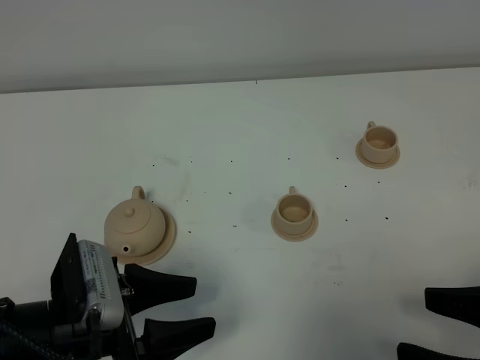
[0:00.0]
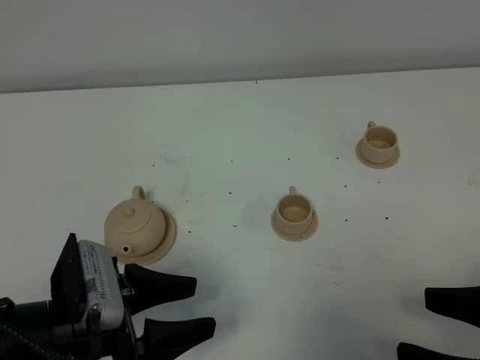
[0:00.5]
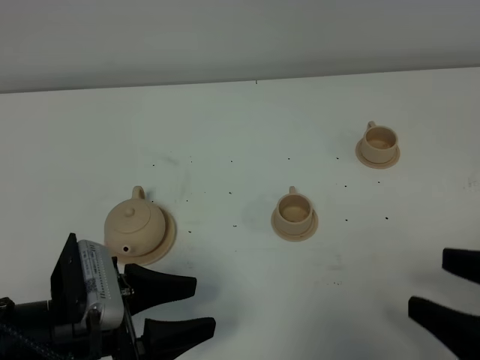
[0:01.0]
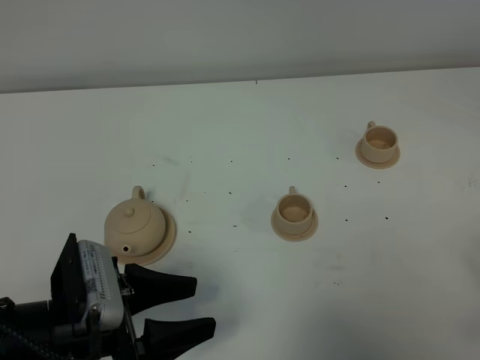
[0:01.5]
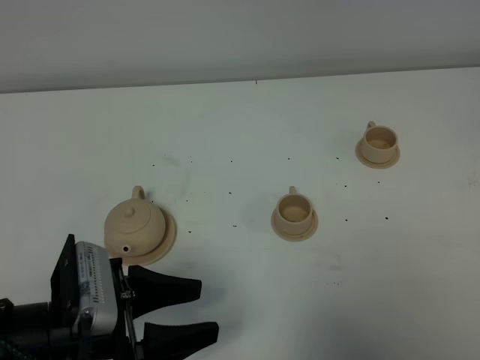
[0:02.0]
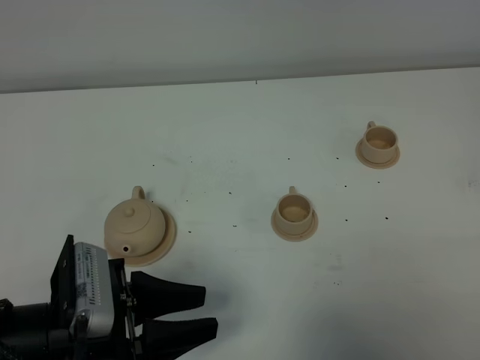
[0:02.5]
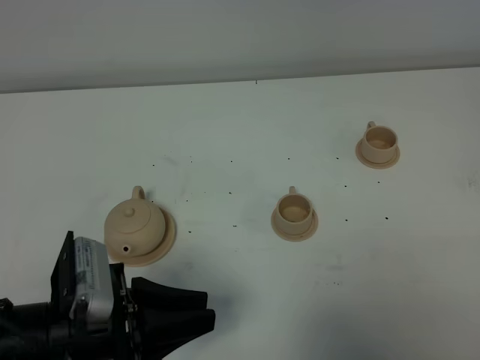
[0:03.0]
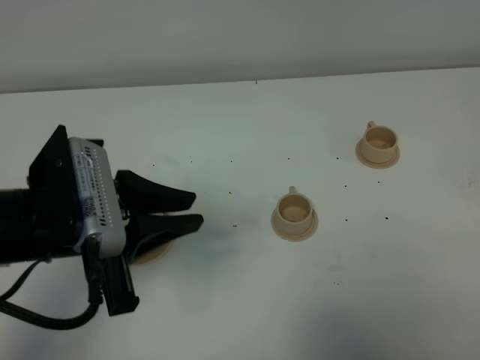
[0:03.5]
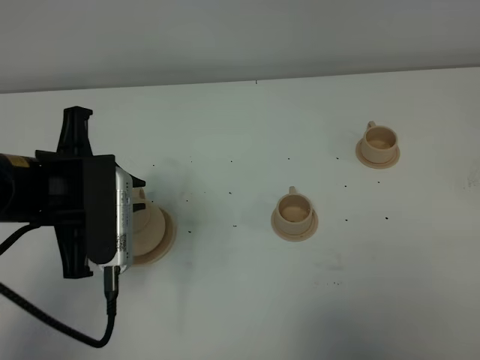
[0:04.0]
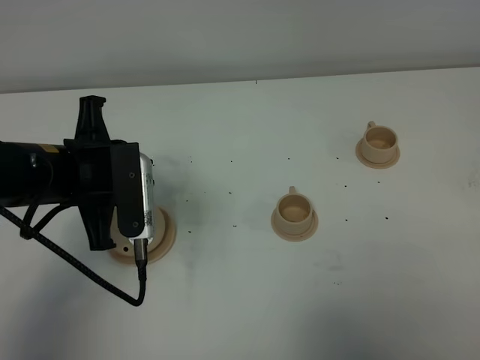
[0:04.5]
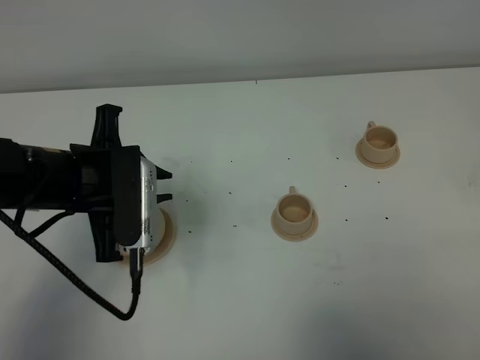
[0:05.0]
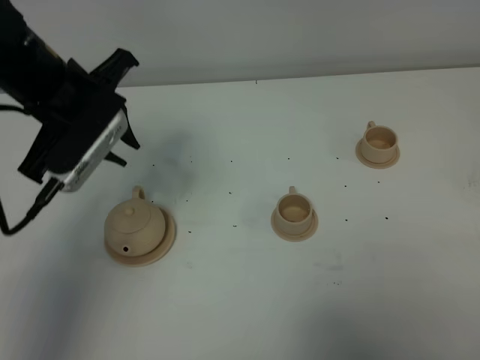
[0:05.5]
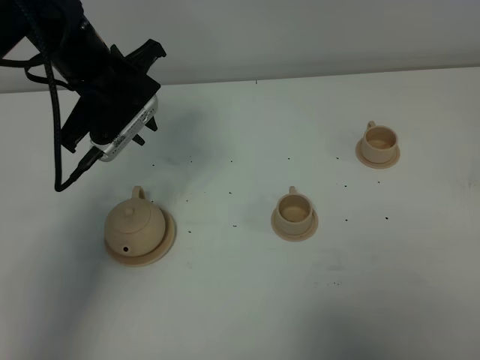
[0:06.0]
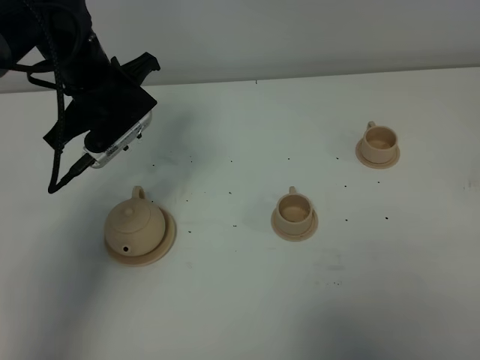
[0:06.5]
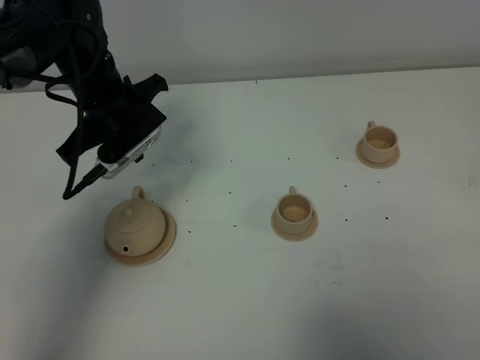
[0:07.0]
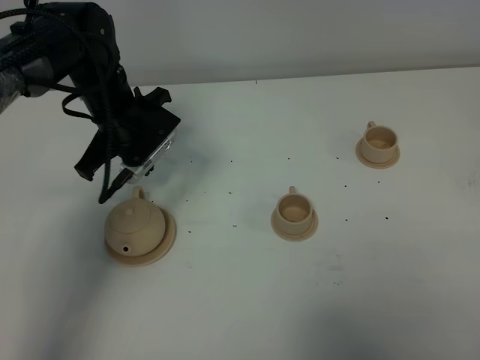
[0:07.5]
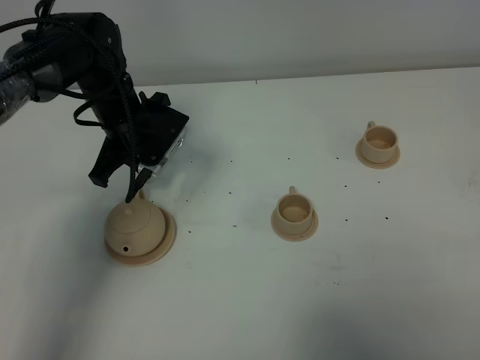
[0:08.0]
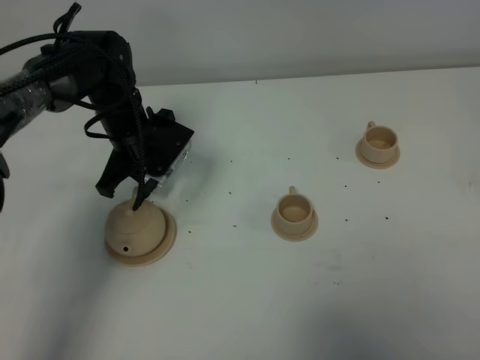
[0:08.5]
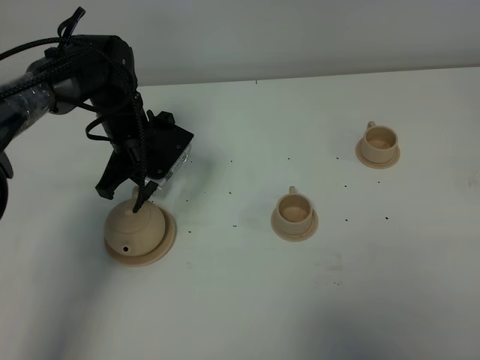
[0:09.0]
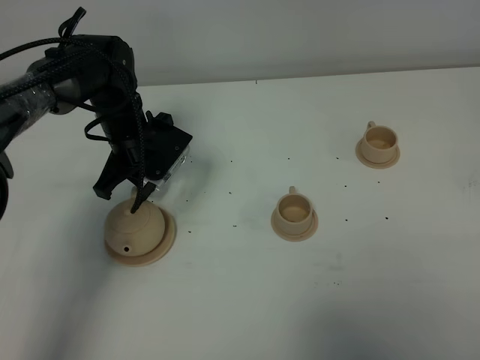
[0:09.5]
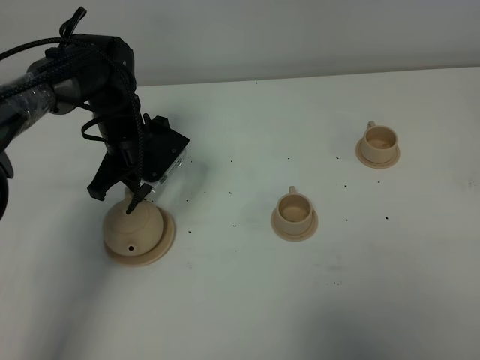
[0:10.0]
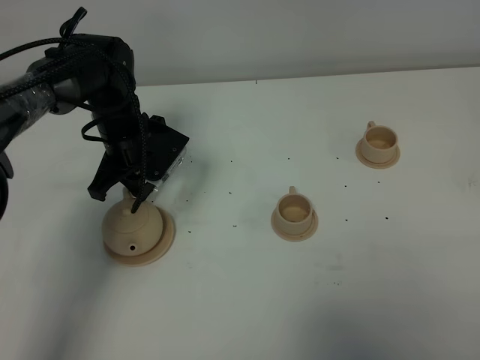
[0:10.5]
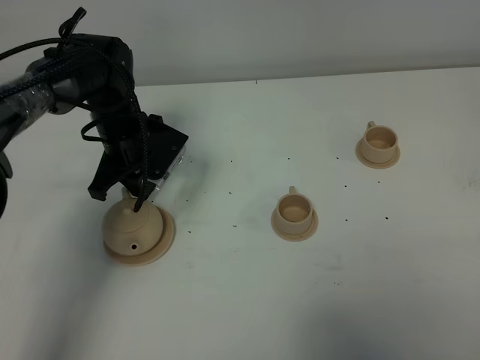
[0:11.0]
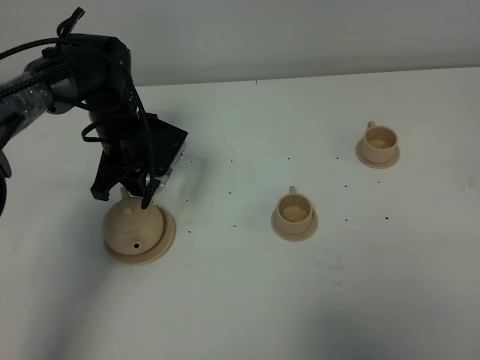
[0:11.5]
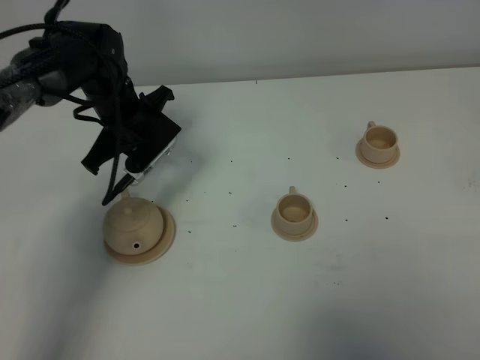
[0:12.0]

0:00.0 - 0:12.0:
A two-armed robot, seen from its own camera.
Task of the whole recording: grasp the brown teapot and pour the tea into the two brown teacups one by one, put the brown teapot back in its original place.
0:00.0 - 0:02.0: The right gripper is displaced to the right, backward and upward by about 10 cm, and closes up.
0:02.0 - 0:04.0: The left gripper goes roughly 15 cm forward and upward, and closes up.
0:04.0 - 0:06.0: The left gripper goes some 15 cm forward.
0:06.0 - 0:08.0: The left gripper travels downward by about 10 cm.
0:08.0 - 0:12.0: The grippers move only a little.

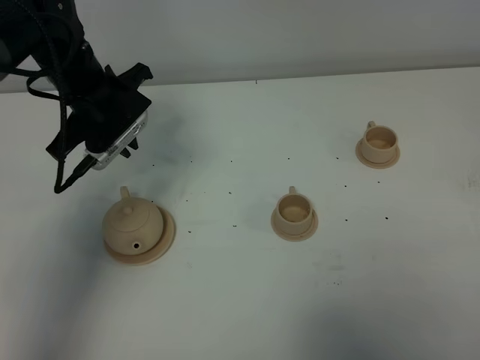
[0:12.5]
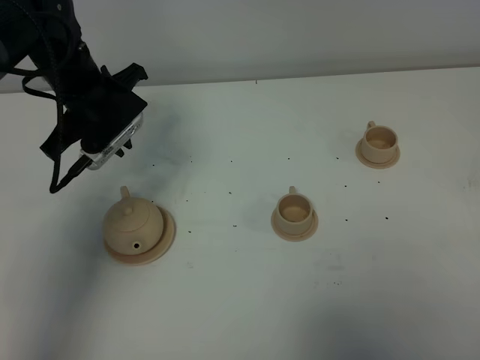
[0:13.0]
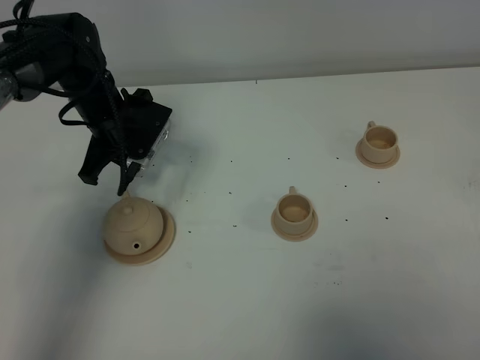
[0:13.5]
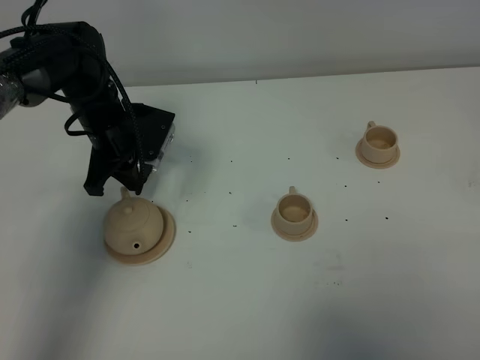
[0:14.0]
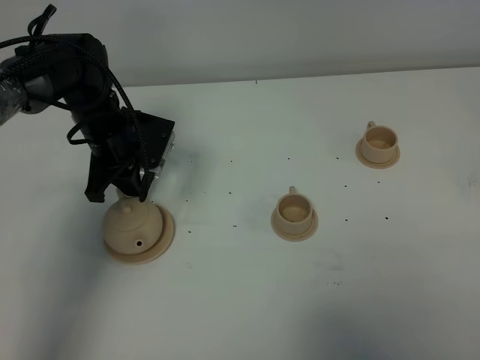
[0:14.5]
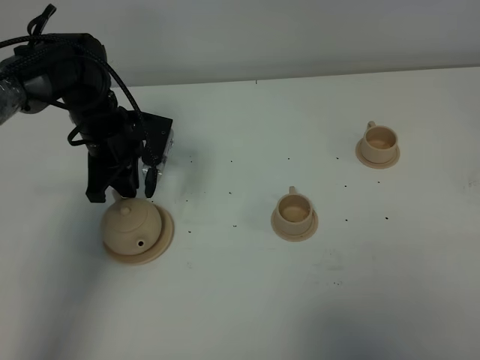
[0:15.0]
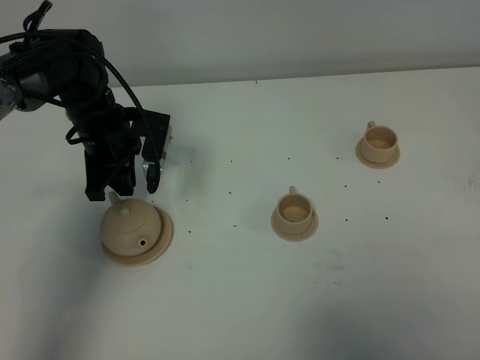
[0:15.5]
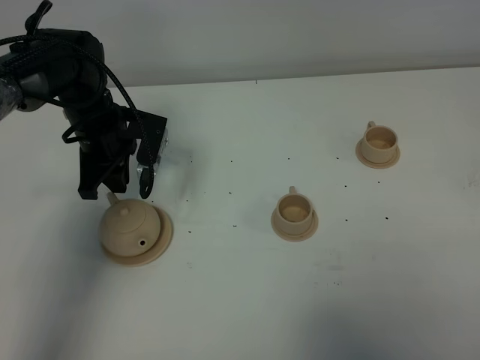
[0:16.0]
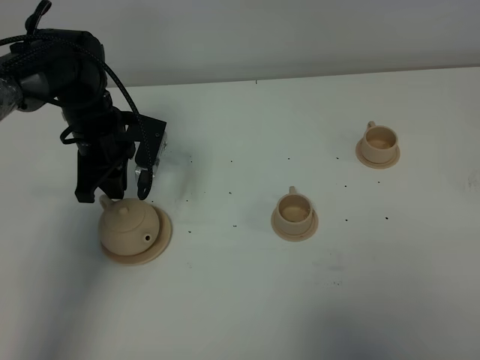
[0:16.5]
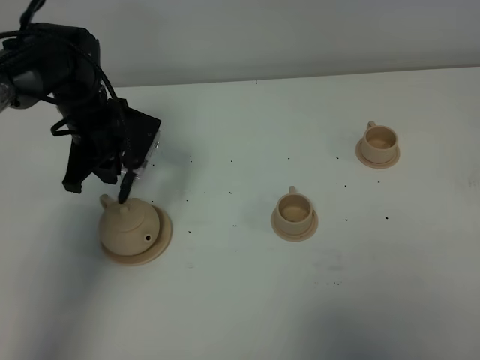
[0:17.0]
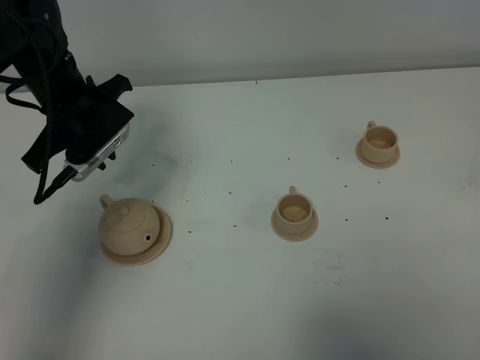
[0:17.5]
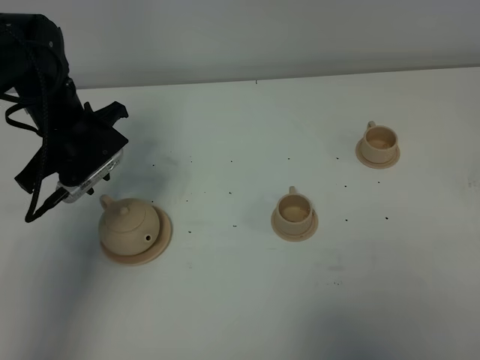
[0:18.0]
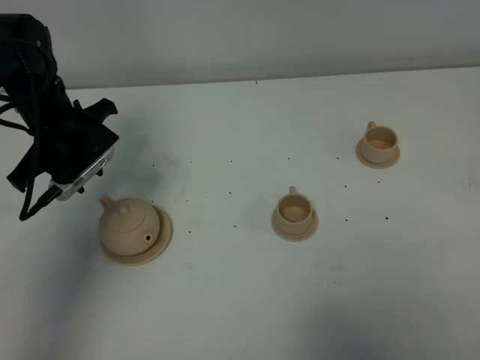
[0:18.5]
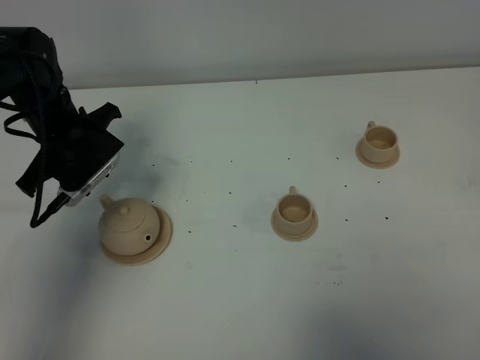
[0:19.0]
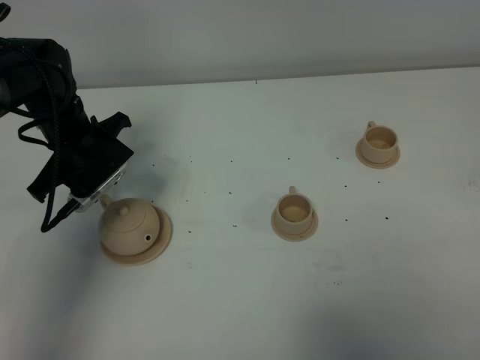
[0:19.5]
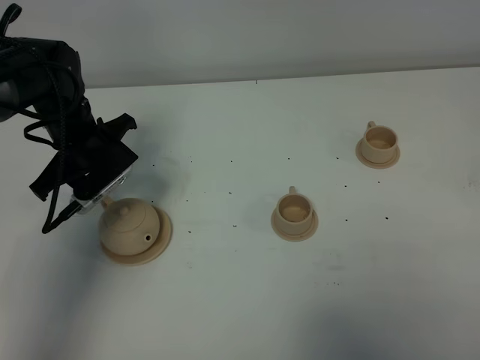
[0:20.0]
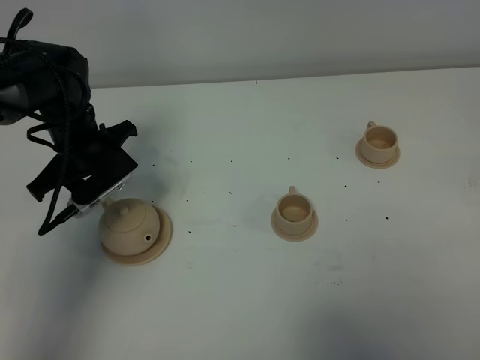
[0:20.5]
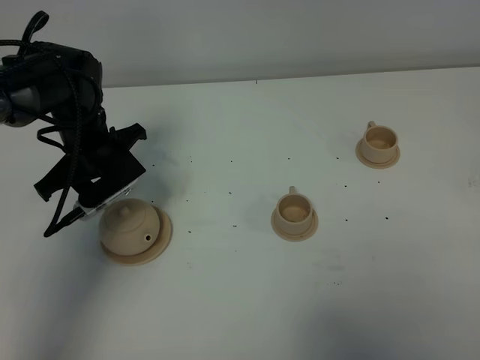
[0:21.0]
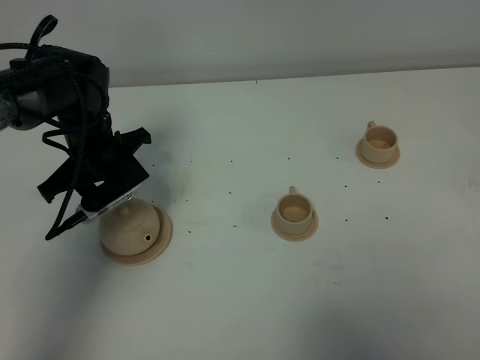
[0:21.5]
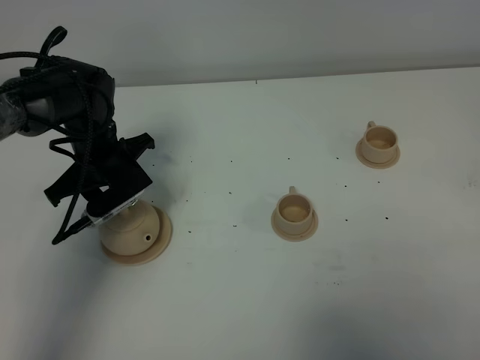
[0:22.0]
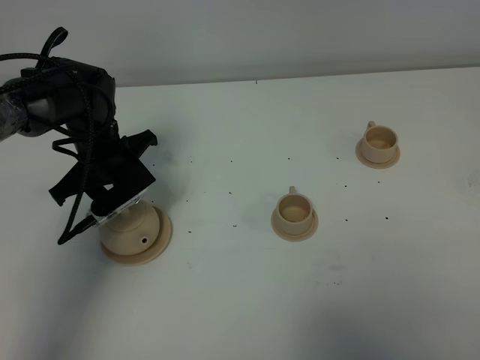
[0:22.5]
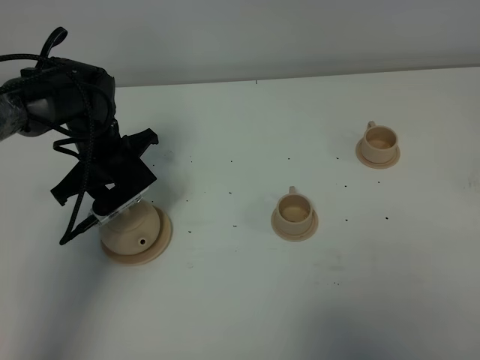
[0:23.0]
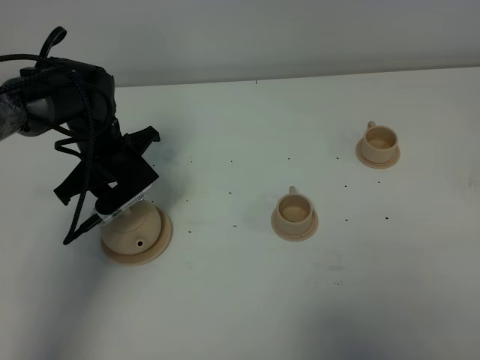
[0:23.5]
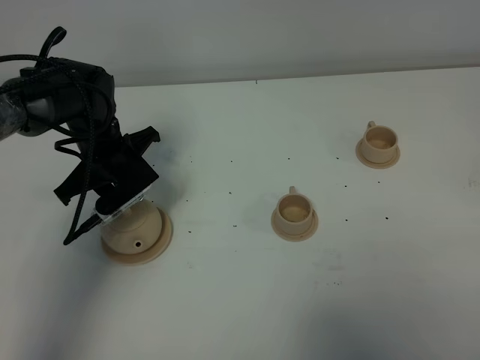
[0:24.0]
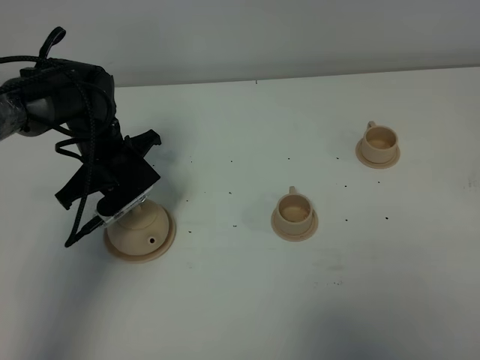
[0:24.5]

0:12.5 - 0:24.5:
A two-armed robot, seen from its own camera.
Task of the whole recording: grasp the brown teapot and pour the tea into the two brown teacups one by one, put the brown teapot back in its original place.
0:12.5 - 0:14.5: The left gripper is displaced downward by approximately 10 cm.
0:14.5 - 0:16.5: The grippers make only small movements.
0:16.5 - 0:18.5: The left gripper moves about 5 cm, and opens its fingers.
0:18.5 - 0:20.5: The grippers move only a little.
0:20.5 - 0:22.5: The grippers move only a little.
0:22.5 - 0:24.5: The left gripper closes up.

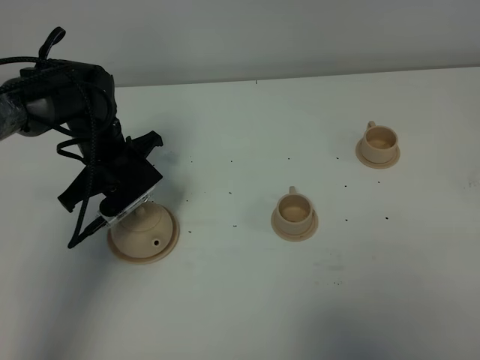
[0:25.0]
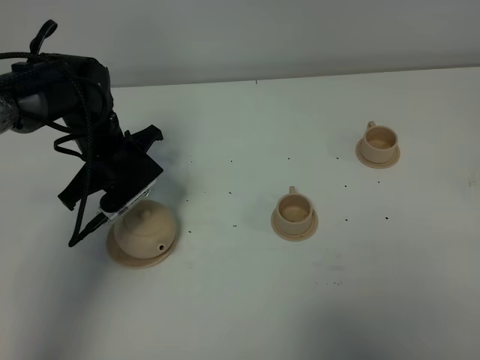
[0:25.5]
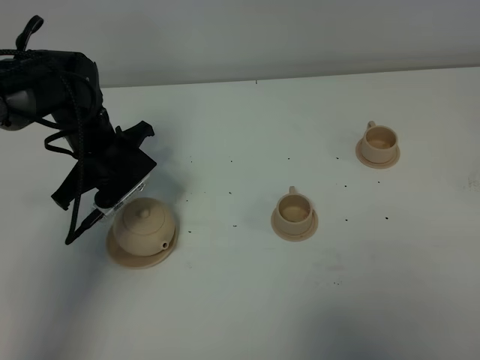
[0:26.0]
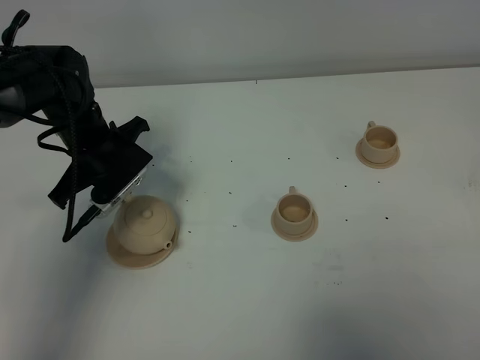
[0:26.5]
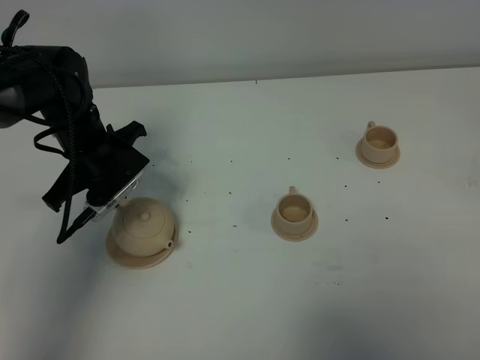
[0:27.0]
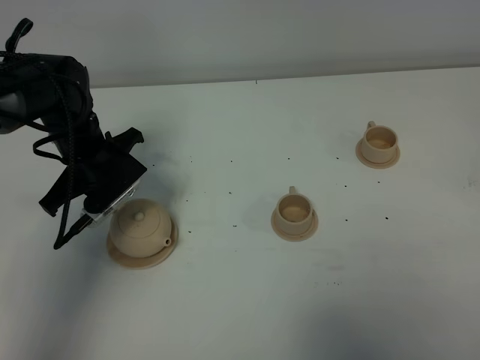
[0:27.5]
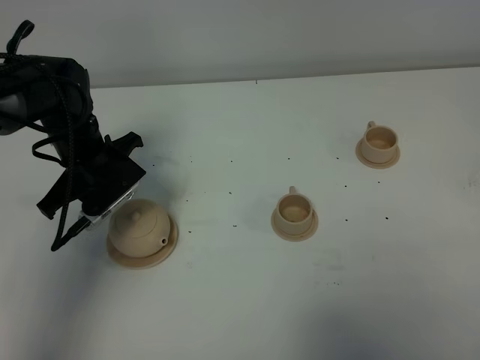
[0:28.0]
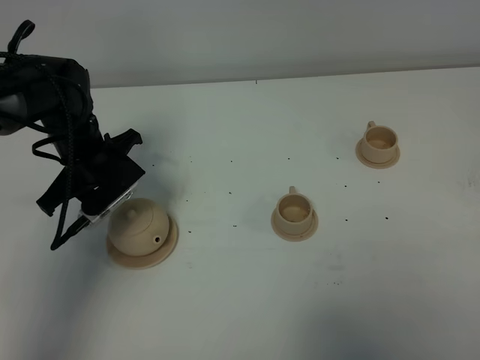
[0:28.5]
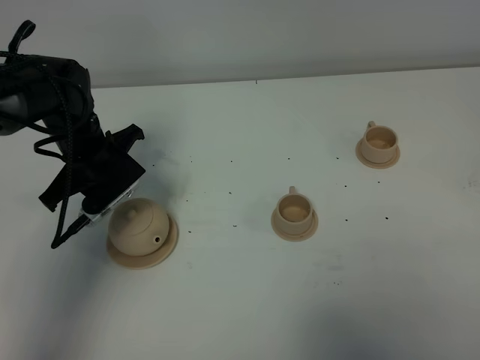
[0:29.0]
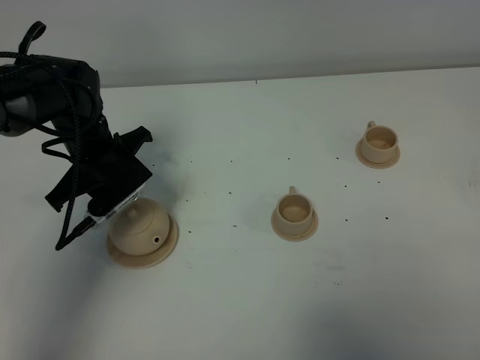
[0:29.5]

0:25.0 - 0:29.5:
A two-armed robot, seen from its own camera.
Task of the whole recording: grasp the brown teapot and pour the tea into the two brown teacups one by one, put the brown teapot back in its original place.
0:25.0 - 0:29.5: There are only small adjustments of the grippers.
